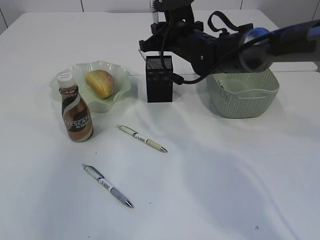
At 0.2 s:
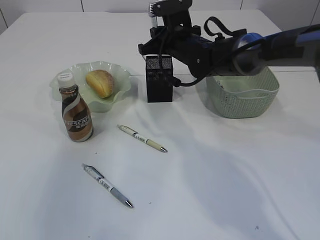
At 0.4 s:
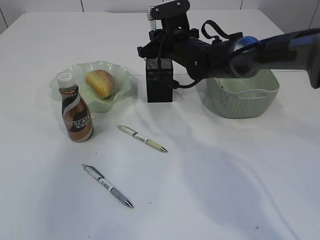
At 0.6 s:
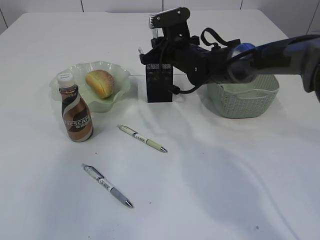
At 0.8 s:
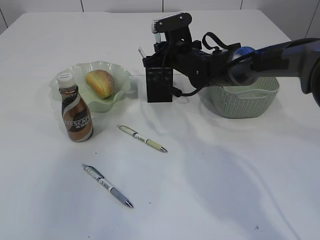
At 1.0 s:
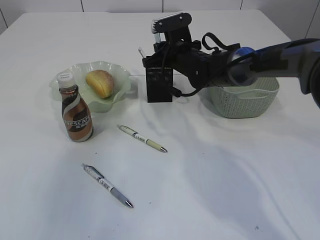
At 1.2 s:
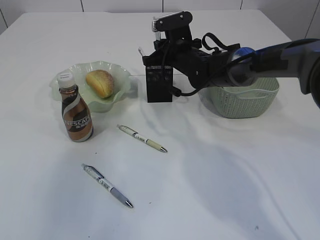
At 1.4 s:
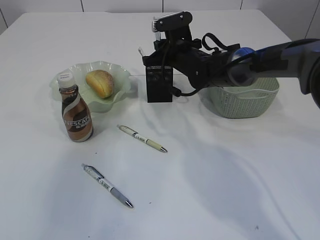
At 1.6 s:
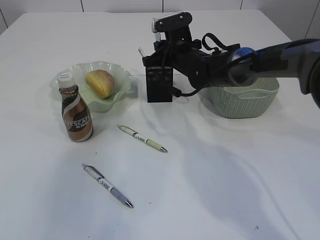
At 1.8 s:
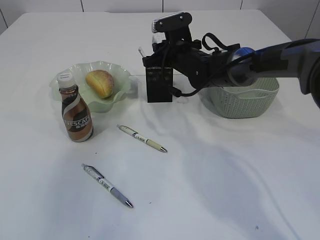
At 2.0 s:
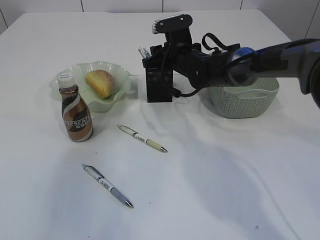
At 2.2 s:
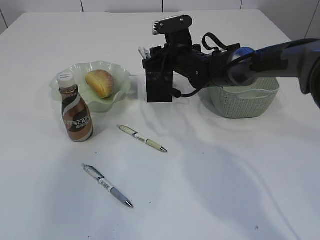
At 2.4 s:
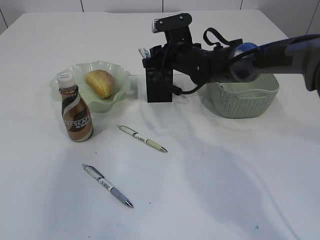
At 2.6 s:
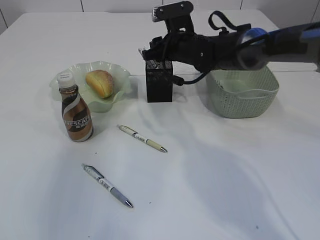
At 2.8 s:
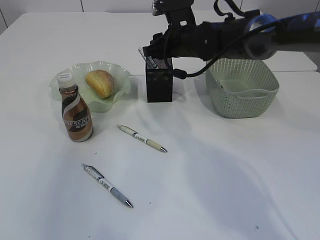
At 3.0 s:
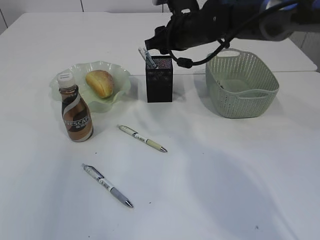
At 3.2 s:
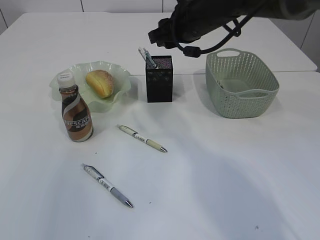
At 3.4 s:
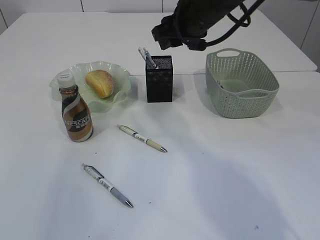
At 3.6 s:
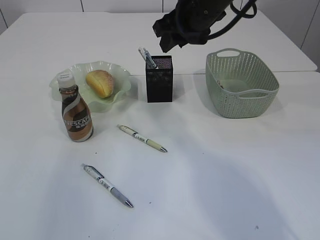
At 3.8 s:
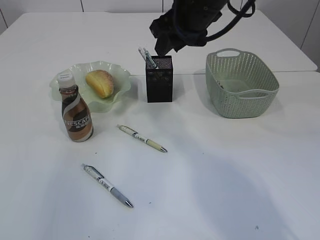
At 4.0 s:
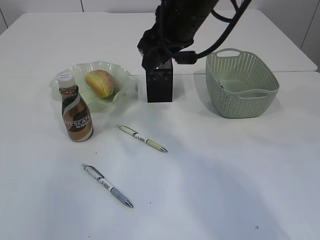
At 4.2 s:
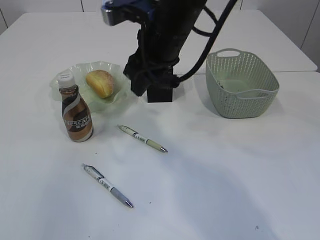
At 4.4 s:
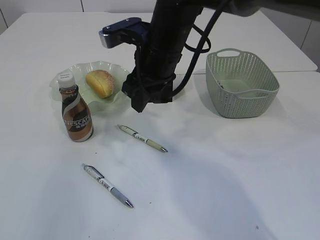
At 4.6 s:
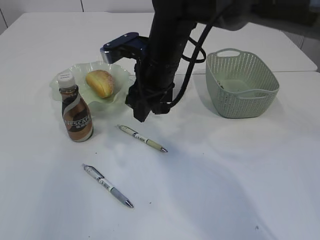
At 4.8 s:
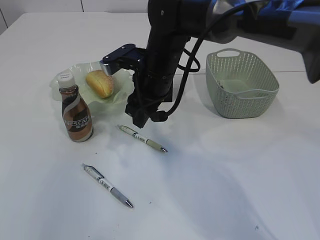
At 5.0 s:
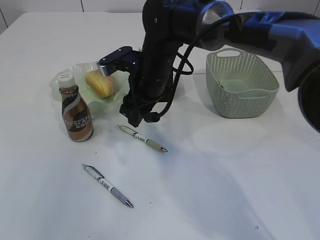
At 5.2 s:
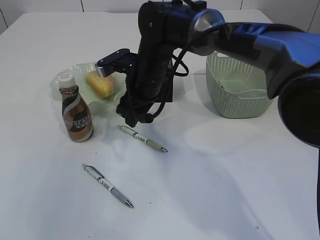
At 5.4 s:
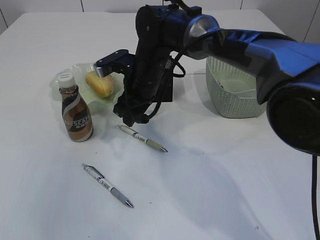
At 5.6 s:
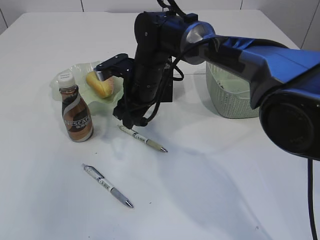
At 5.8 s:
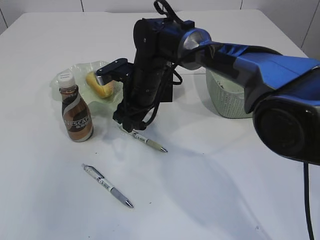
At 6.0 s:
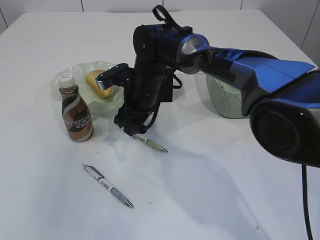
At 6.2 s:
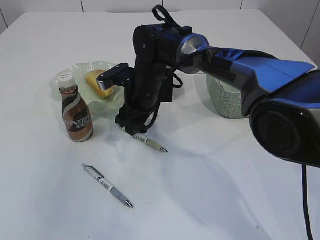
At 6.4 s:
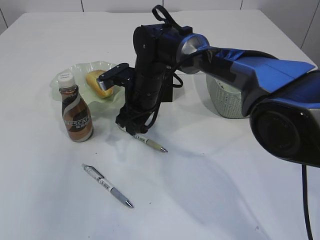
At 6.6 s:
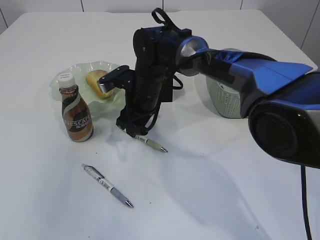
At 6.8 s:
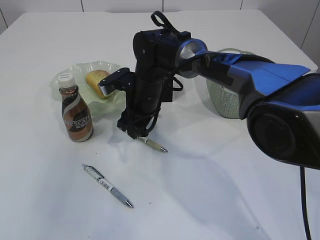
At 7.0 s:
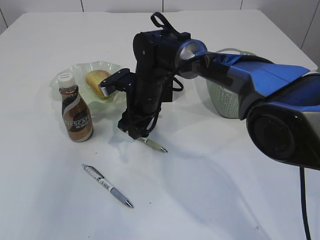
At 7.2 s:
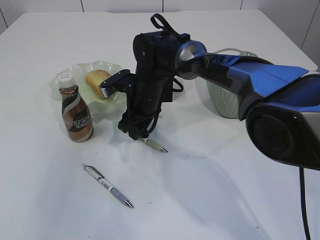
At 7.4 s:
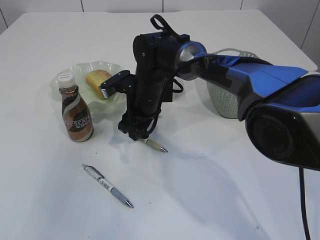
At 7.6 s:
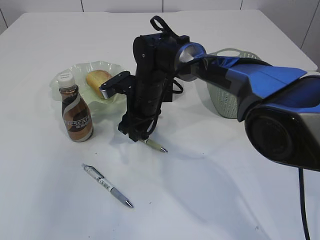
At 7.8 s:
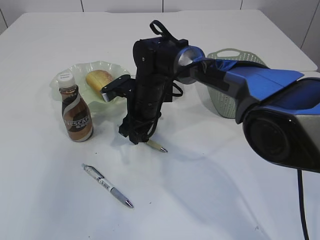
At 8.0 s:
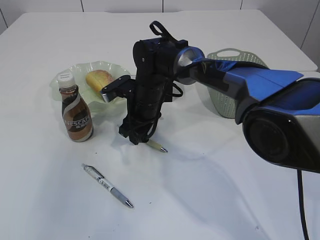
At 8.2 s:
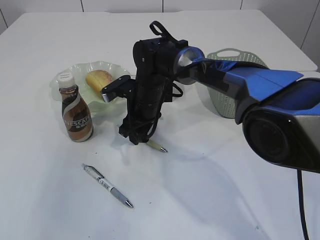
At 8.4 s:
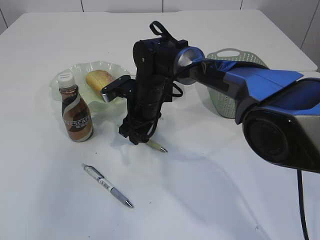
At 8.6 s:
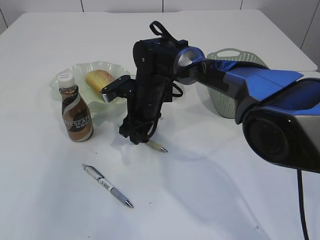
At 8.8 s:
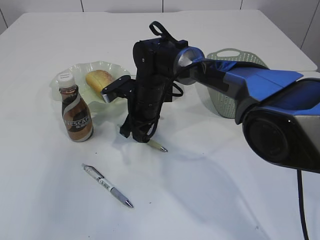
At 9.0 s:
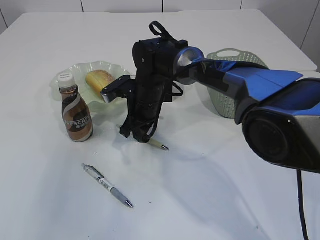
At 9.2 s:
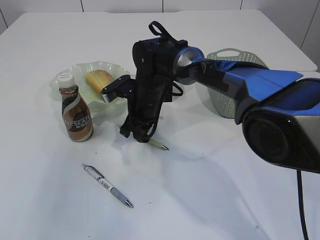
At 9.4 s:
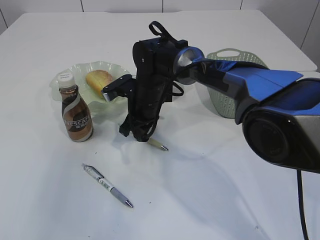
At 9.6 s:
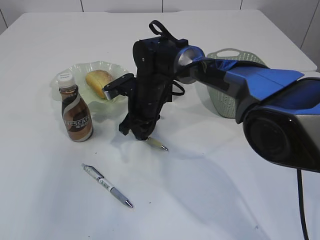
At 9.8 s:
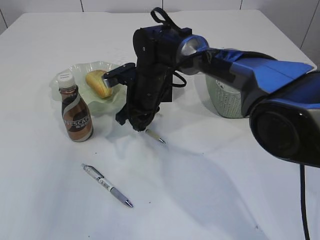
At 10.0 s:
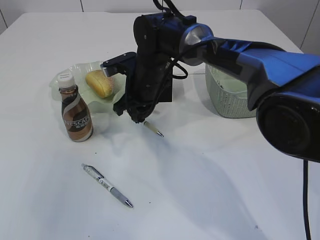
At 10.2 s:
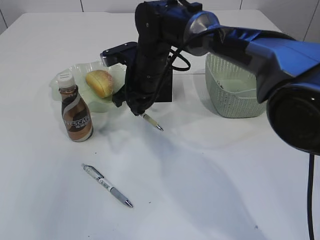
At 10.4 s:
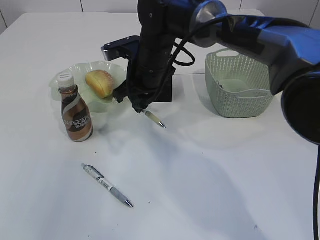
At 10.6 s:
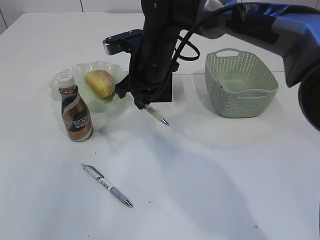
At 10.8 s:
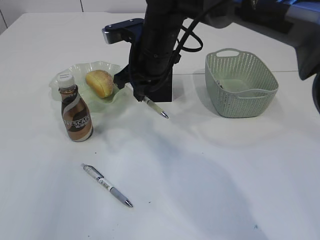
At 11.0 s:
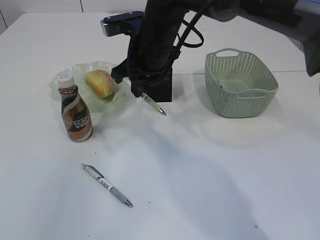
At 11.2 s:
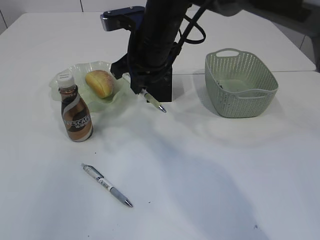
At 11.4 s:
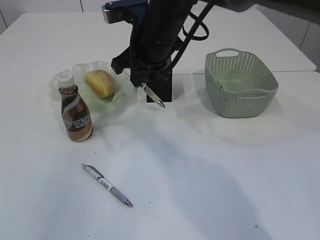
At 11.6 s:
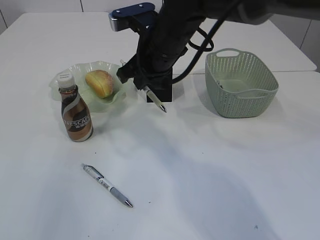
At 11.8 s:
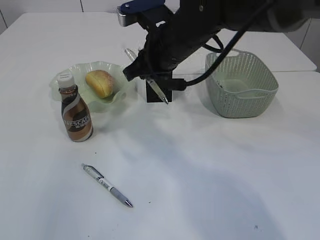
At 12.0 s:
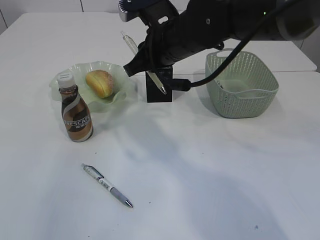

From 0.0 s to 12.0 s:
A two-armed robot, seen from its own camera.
Step, from 0.0 s to 3.4 s: Place the pen into the pen holder.
Step, from 3.6 s to 10.0 s: Pick up the pen with right arm.
From 0.0 s to 1.6 s: The right gripper shifts by roughly 5 cm.
From 1.6 s to 3.0 s: The right gripper is displaced upward by some 10 cm, and opens.
From 3.0 s to 4.4 s: The right gripper goes some 10 cm backward and to the left.
From 4.4 s to 6.0 s: The right gripper shifts approximately 10 cm downward and forward.
From 6.0 s to 7.6 s: The grippers move only a little.
From 7.6 s to 9.0 s: The right gripper closes its fingers.
From 9.0 s to 10.4 s: The right gripper goes approximately 10 cm upward.
From 10.4 s to 12.0 s: The right gripper is displaced upward by roughly 5 cm.

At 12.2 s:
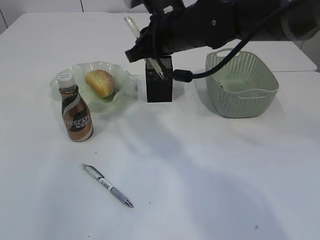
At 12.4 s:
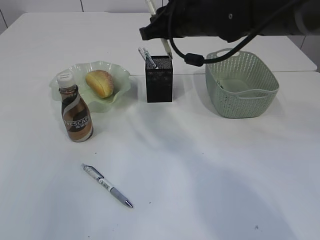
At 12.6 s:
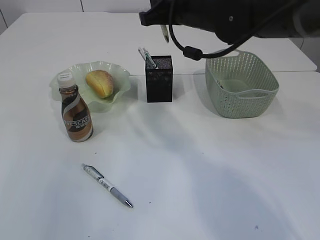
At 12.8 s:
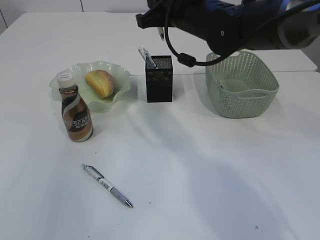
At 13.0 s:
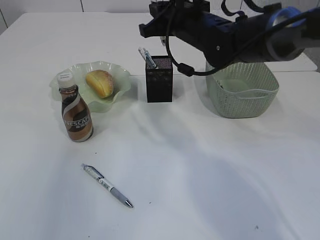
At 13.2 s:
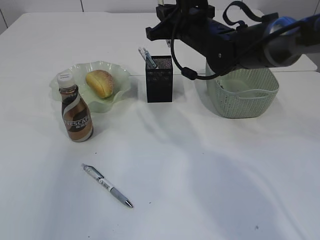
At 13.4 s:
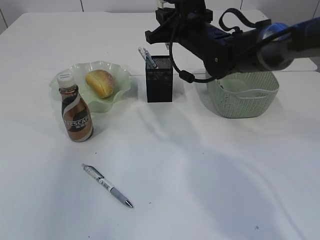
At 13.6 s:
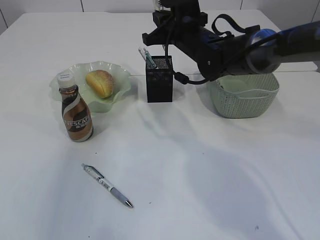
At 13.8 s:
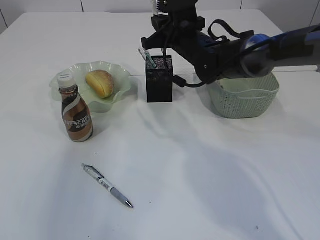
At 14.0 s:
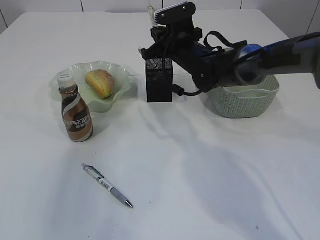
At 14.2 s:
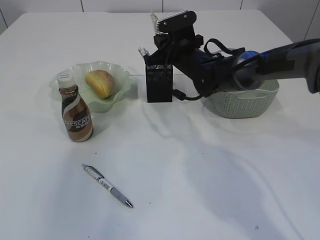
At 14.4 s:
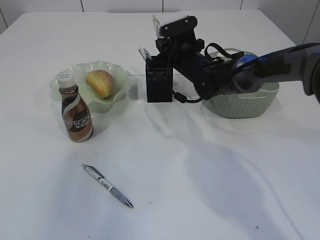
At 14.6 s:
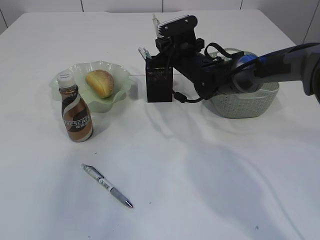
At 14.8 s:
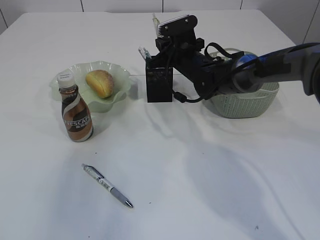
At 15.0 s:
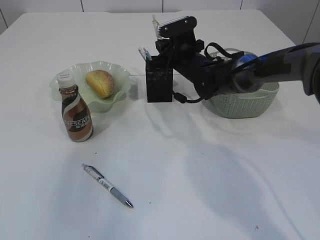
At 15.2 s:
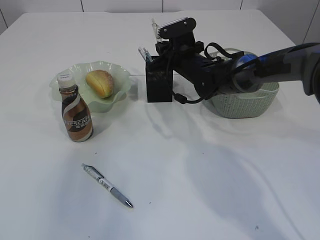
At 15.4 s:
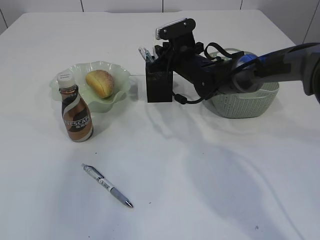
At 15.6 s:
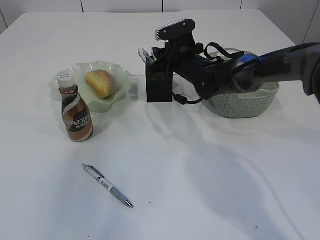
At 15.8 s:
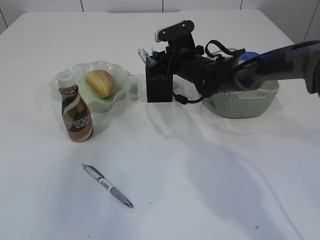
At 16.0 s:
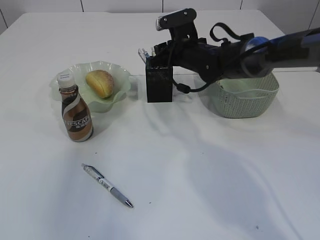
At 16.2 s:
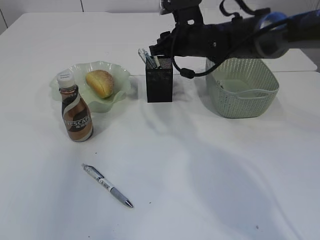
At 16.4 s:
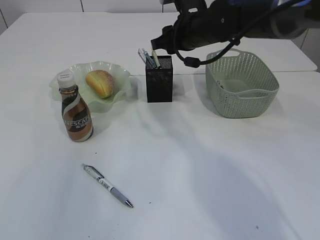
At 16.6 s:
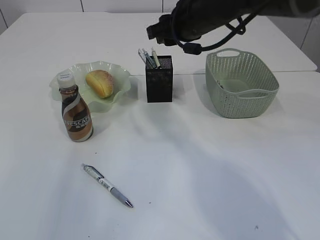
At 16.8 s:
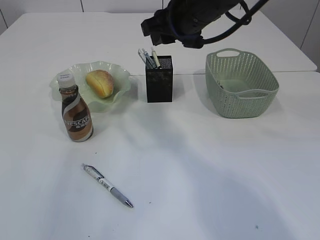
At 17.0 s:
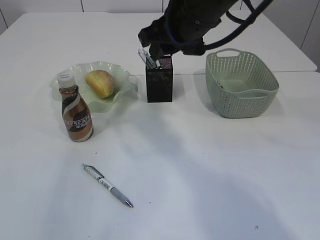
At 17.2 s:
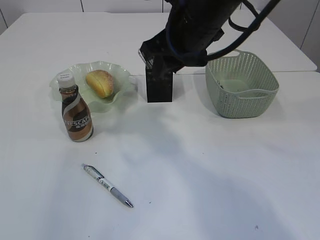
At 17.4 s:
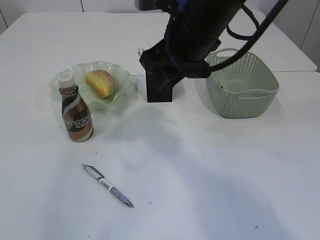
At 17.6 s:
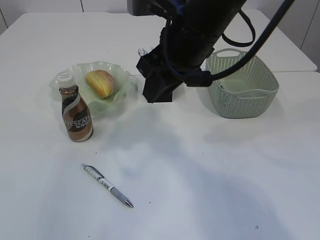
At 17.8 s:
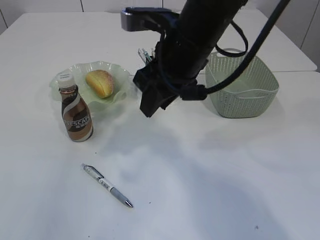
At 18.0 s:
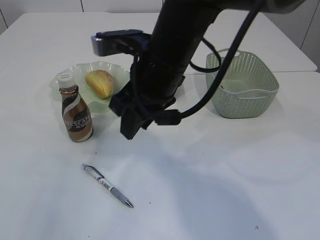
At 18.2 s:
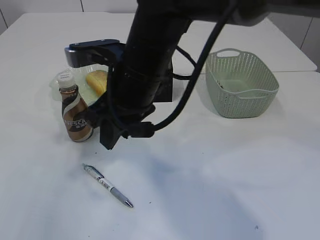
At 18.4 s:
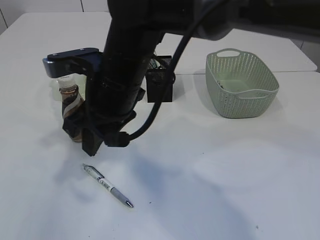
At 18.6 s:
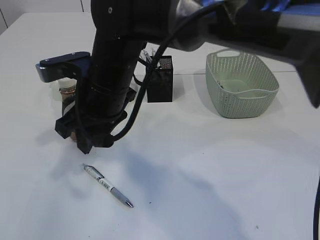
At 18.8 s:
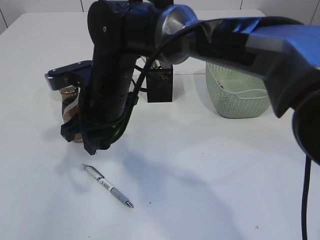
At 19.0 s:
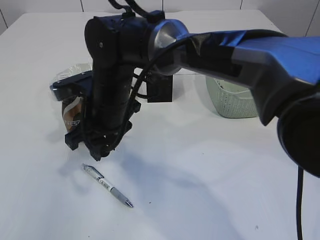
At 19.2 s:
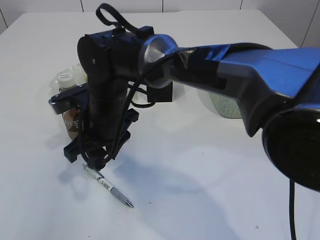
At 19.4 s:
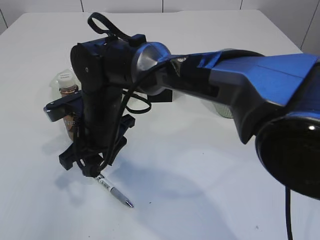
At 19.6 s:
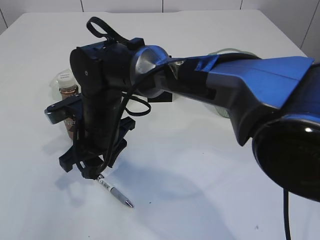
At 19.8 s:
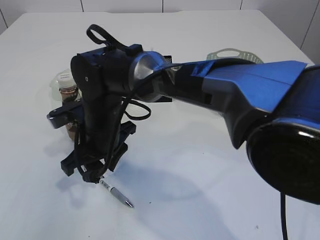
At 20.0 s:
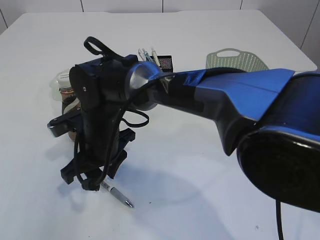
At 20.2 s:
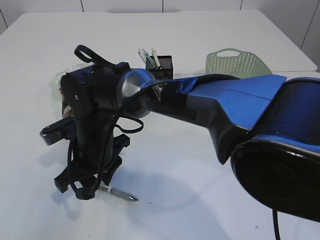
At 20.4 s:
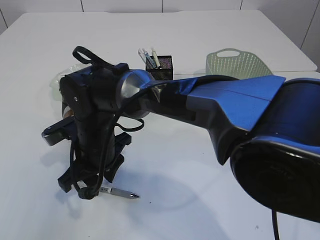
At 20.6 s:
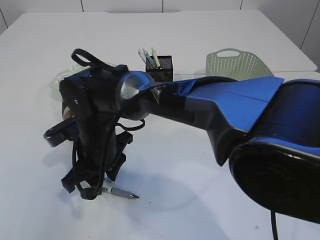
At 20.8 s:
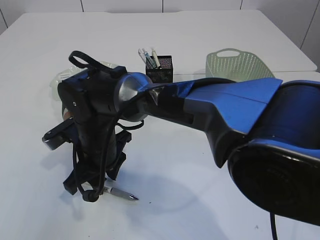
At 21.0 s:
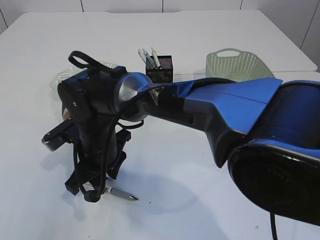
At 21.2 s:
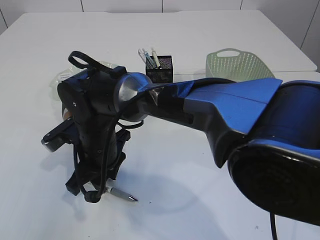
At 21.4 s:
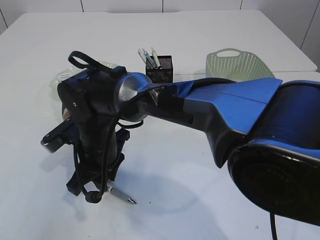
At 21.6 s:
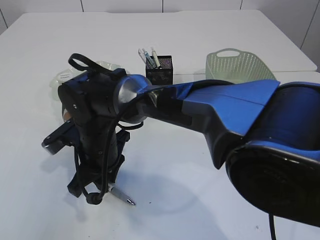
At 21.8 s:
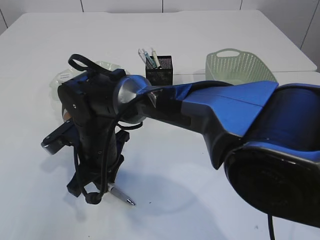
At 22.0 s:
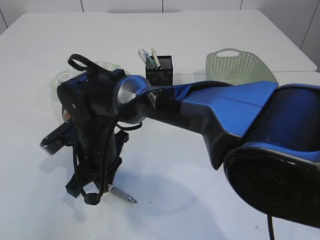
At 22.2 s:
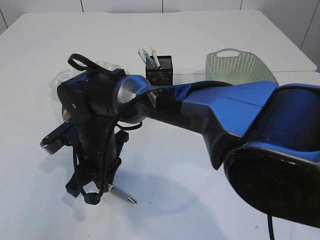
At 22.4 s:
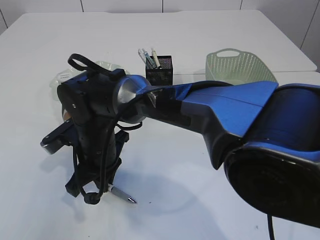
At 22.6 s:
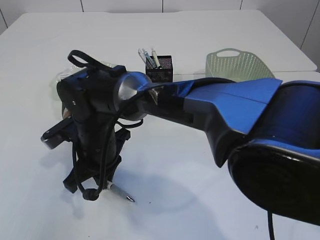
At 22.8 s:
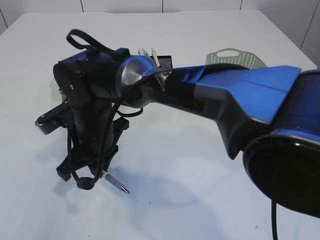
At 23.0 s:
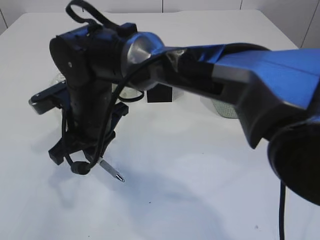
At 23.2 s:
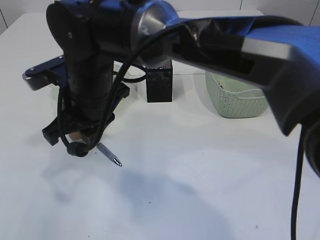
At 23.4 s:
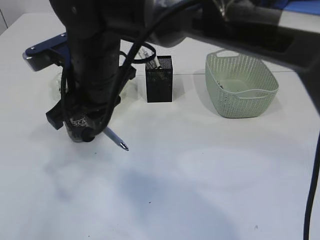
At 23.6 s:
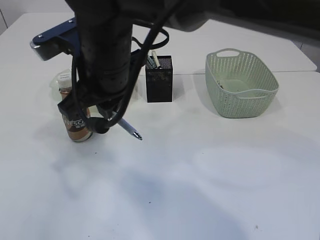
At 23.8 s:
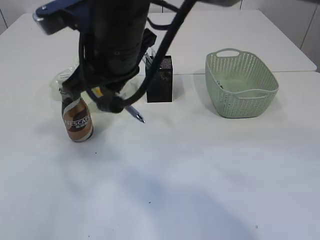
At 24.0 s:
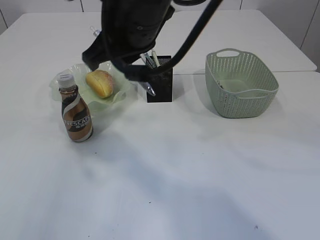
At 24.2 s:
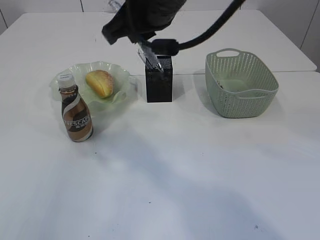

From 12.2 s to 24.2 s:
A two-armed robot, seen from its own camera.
Step, from 12.2 s to 16.6 s: Place the pen into the pen holder.
Step, from 16.8 s to 23.4 s: Pick up the pen with right arm.
From 12.2 s to 13.8 s: The right gripper is displaced forward and downward by about 10 cm.
From 13.8 s to 15.2 s: The right gripper is displaced downward by approximately 5 cm.
From 15.2 s to 16.6 s: The right gripper heads upward and backward, covering approximately 15 cm, and opens up.
From 16.6 s to 18.2 s: The right gripper heads backward and to the left, covering approximately 15 cm.
From 18.2 s to 19.8 s: The right gripper moves downward and to the left, some 15 cm.
From 21.2 s to 22.6 s: The right gripper closes up.
From 22.6 s to 24.2 s: The right gripper is displaced upward and to the right by roughly 25 cm.
